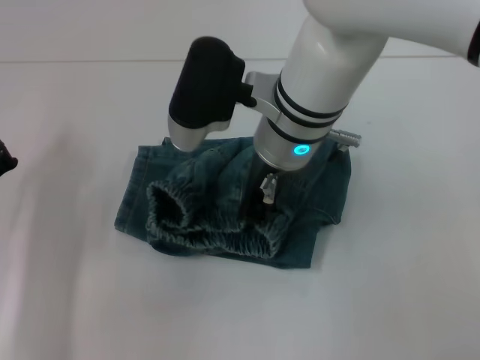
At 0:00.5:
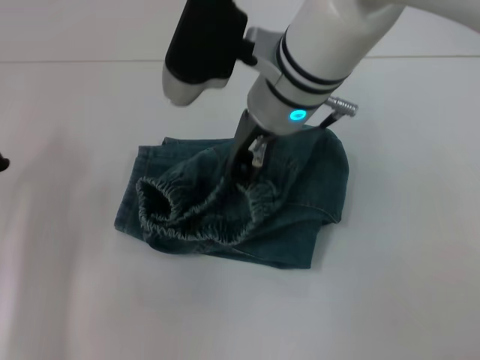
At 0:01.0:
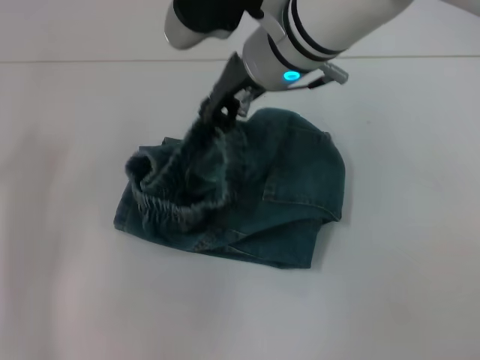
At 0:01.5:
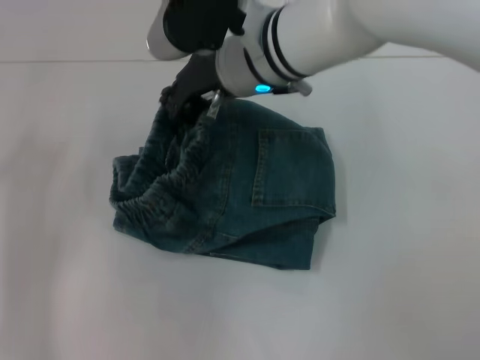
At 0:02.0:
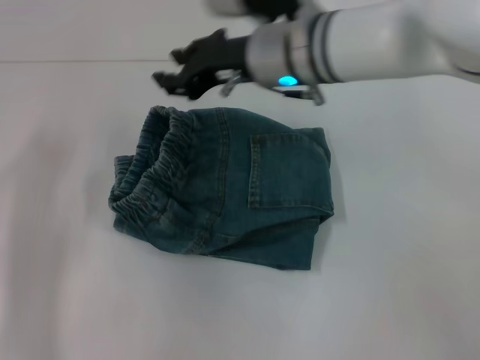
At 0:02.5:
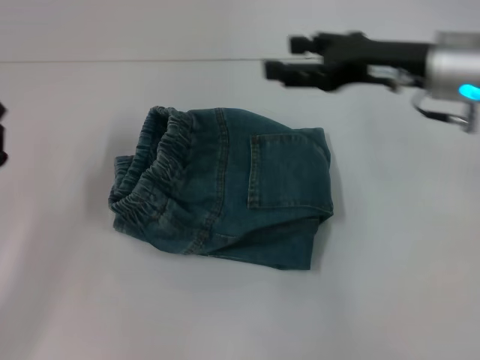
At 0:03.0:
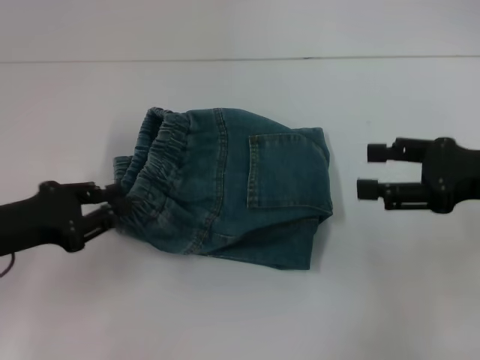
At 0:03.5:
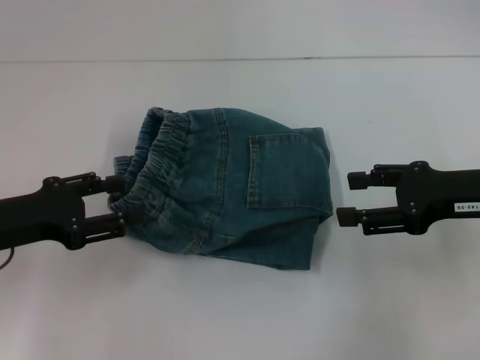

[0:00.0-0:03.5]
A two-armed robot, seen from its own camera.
0:00.0 to 0:02.0: The right gripper shifts by about 5 cm.
0:02.0 to 0:03.5: The left gripper travels upward by some 10 cm, and opens up; the right gripper is displaced to the right and backward by roughly 25 cm, and opens.
